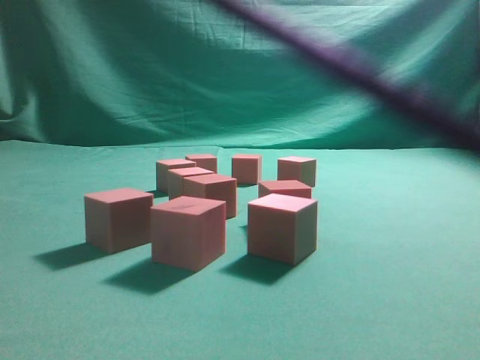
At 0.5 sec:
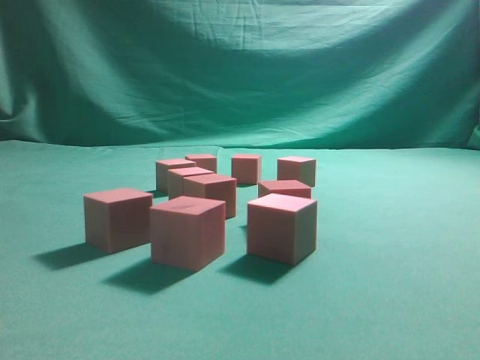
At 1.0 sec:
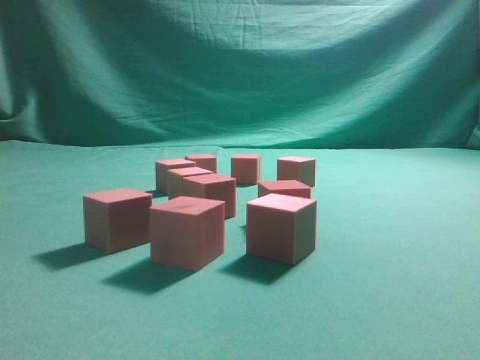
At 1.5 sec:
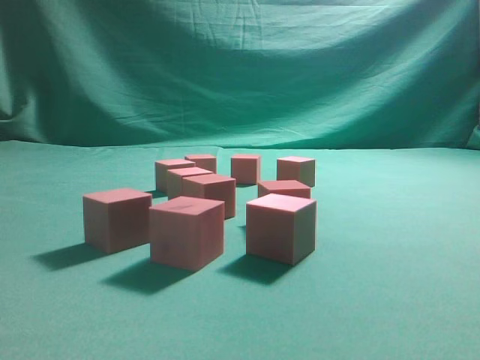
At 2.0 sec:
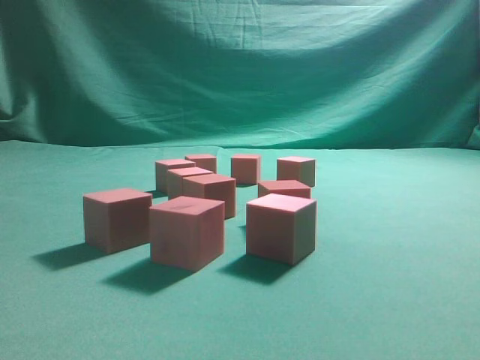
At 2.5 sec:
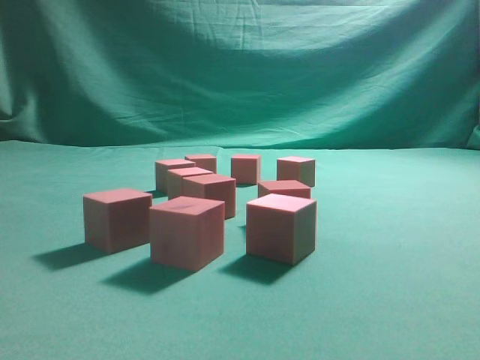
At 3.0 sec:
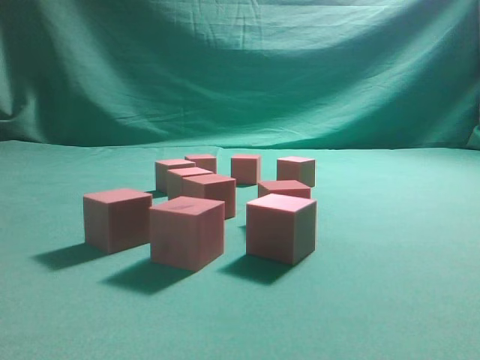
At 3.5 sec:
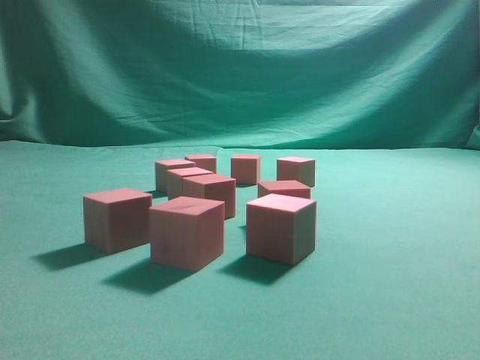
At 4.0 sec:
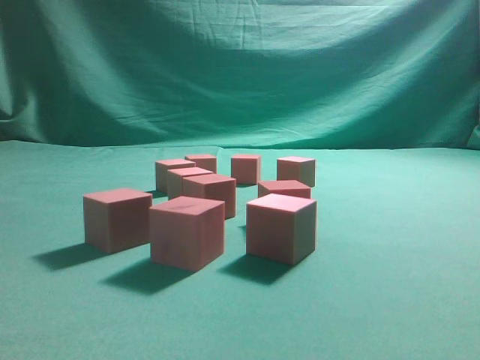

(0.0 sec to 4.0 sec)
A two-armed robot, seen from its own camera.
Task of the whole recording: pick up the multiple cubes in two columns one by one and place them in another position on the table.
0.0 sec - 2.0 sec: The right gripper moves to the right and backward, about 35 cm.
